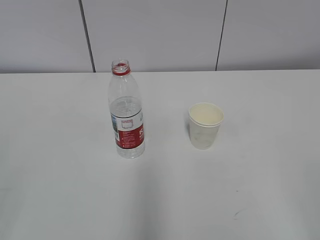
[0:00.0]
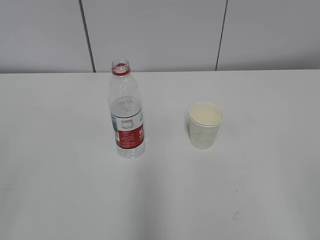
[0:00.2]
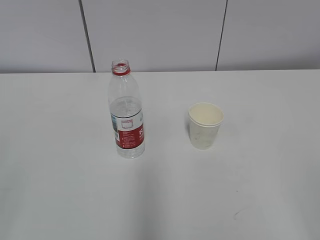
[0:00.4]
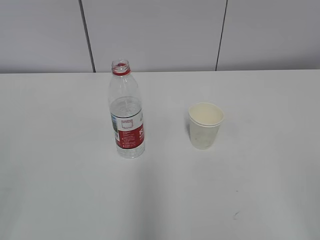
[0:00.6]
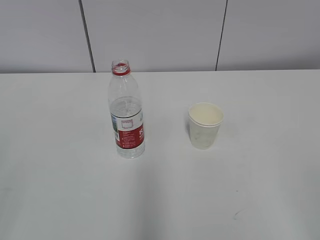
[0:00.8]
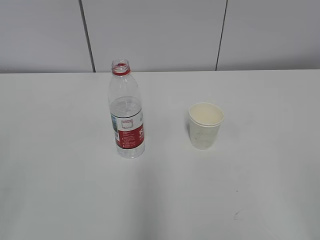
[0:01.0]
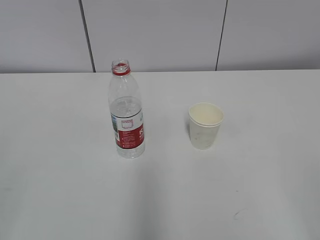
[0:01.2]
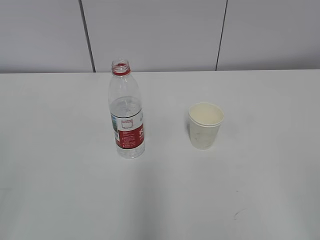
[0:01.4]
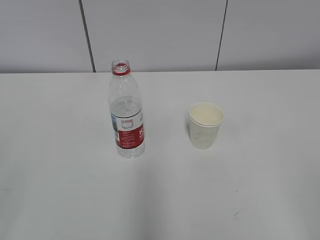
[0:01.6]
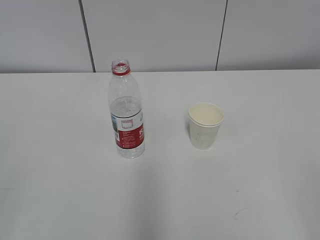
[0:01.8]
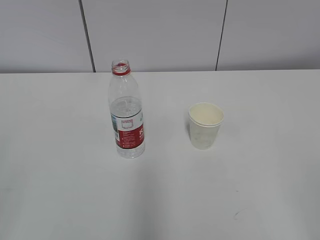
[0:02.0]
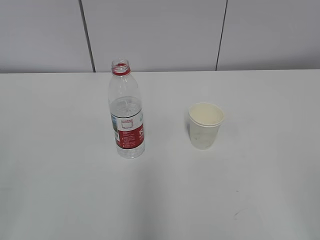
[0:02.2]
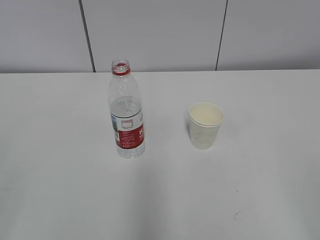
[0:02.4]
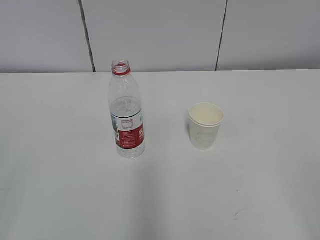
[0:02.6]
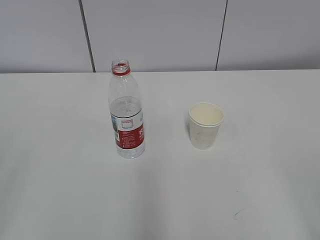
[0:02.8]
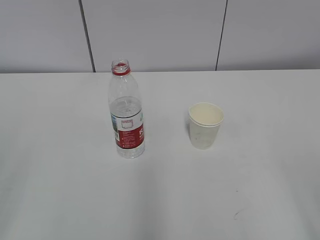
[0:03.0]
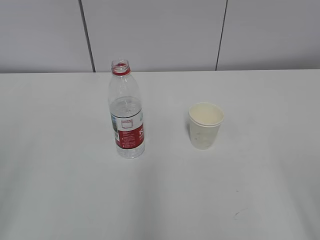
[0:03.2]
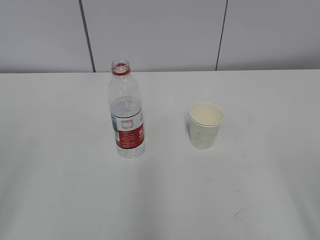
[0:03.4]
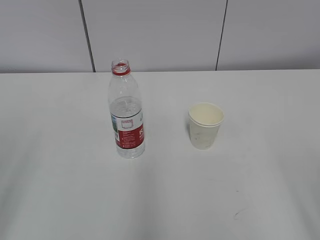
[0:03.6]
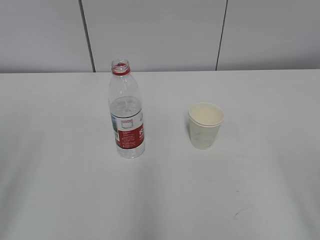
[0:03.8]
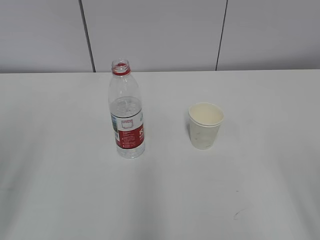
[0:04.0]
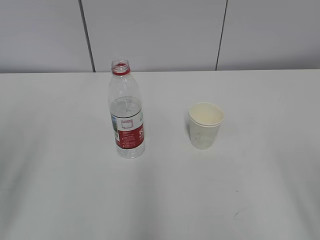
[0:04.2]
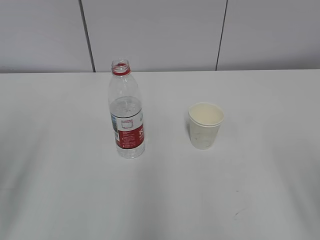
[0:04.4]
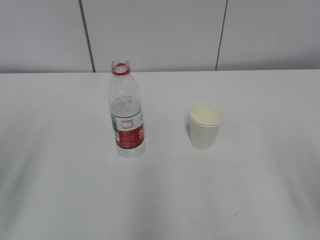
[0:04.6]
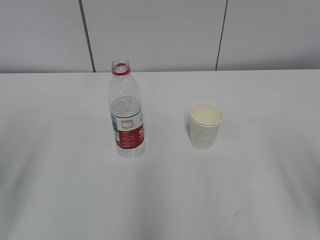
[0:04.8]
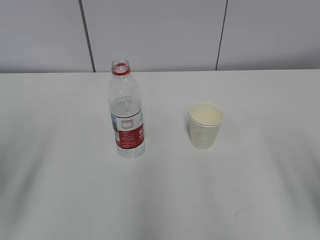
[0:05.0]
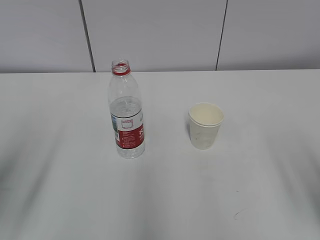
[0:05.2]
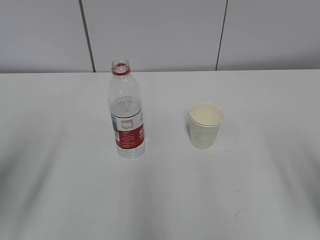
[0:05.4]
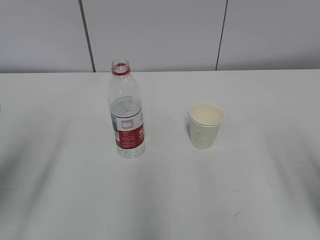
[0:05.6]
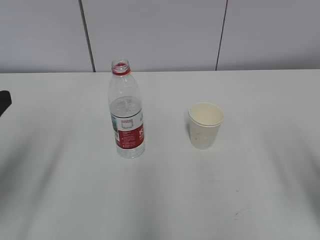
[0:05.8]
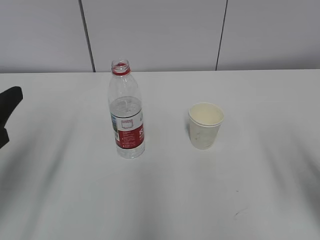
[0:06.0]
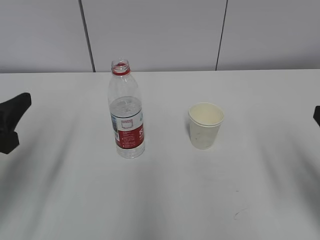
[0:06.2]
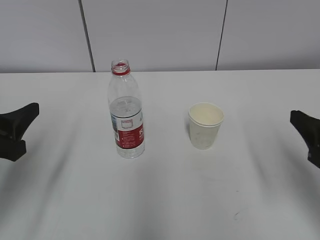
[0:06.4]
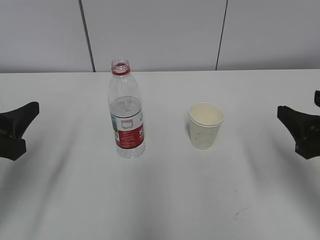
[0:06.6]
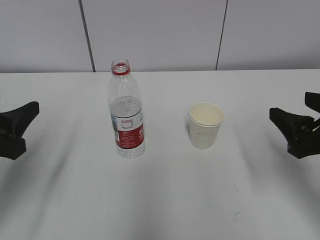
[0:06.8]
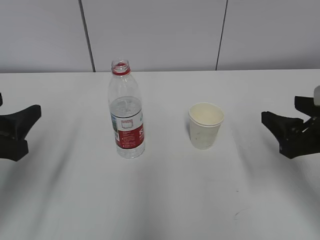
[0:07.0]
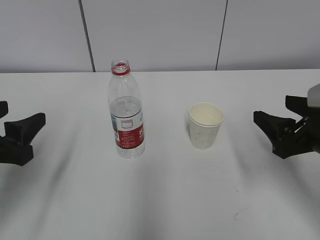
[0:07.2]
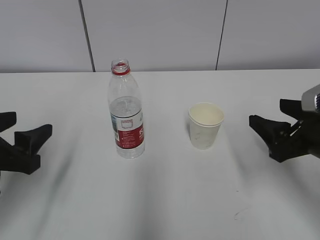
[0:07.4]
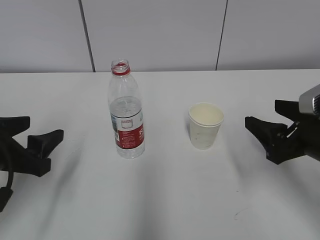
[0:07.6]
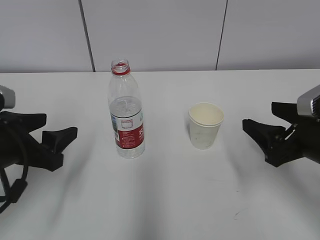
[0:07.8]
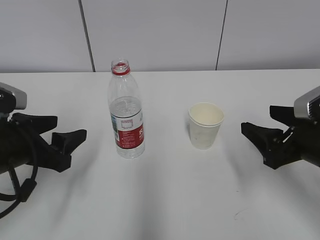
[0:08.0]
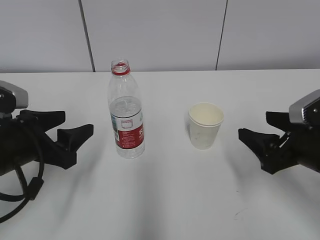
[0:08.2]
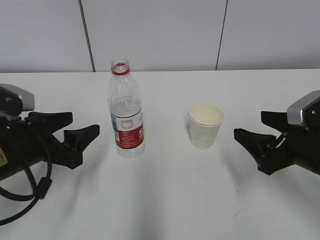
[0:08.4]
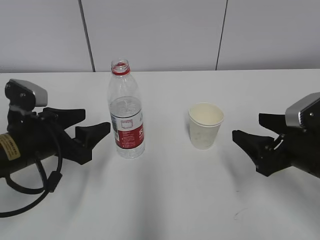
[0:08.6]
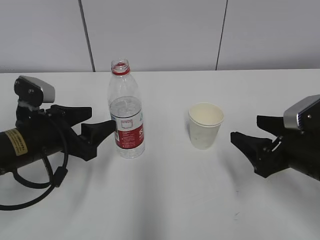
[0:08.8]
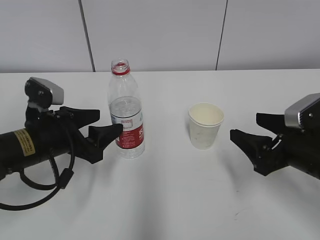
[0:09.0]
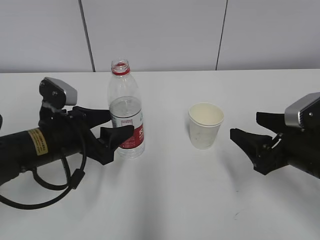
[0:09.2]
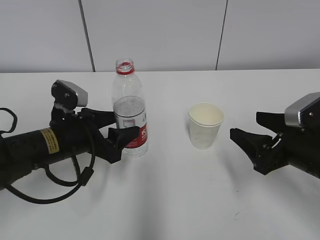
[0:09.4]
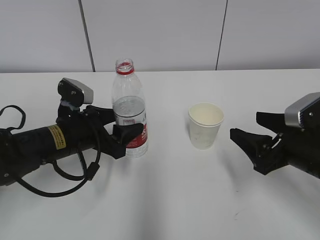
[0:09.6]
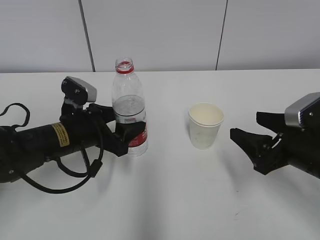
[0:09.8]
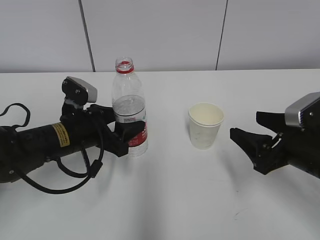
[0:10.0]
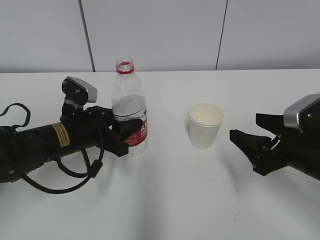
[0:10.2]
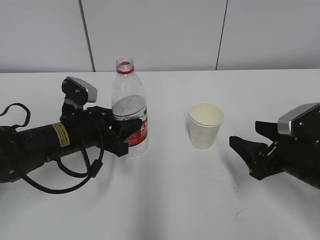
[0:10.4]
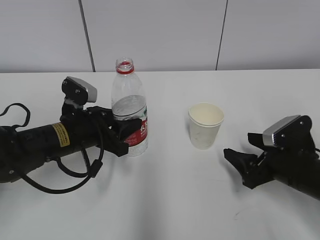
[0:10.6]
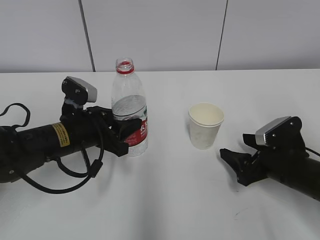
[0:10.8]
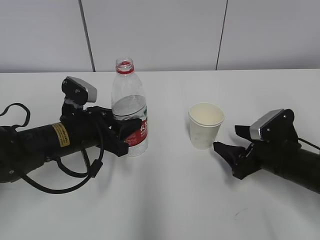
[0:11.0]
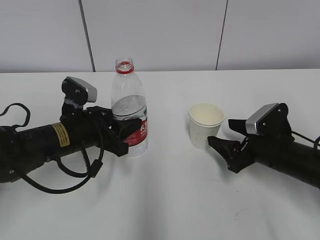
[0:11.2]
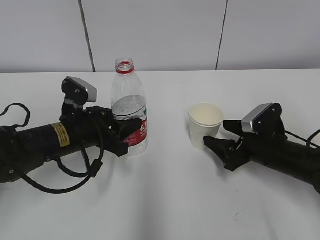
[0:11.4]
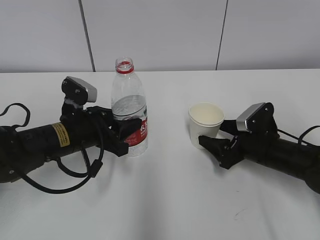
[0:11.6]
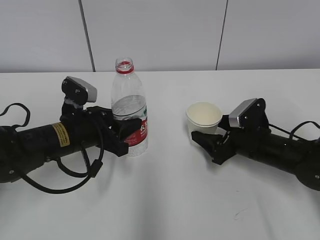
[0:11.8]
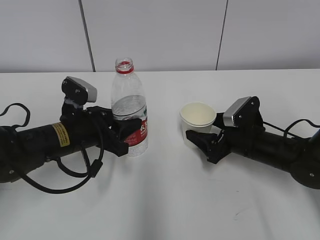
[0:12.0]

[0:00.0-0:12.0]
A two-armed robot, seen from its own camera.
Step, 0:00.0 to 0:10.4: Grab the water bottle with the left hand.
0:04.4 to 0:06.0: The two grippers go some 5 cm forward.
0:06.0 to 0:07.6: The left gripper shifts about 5 cm downward. The right gripper moves forward and downward, some 10 cm.
0:07.6 to 0:09.0: The left gripper moves forward and to the right, about 10 cm.
0:09.0 to 0:10.4: The left gripper shifts by about 5 cm, and closes up.
0:10.4 to 0:12.0: The right gripper moves forward, approximately 10 cm.

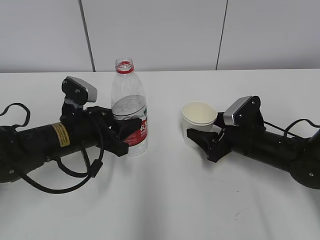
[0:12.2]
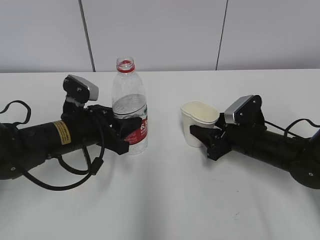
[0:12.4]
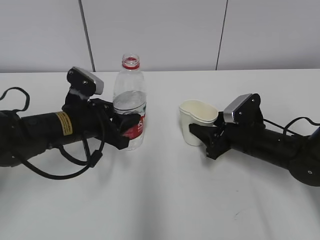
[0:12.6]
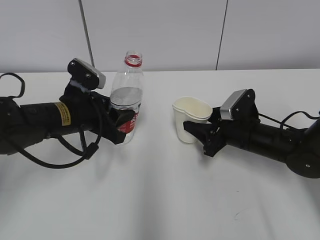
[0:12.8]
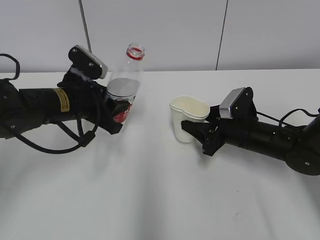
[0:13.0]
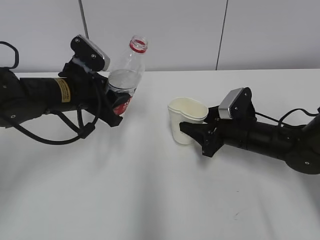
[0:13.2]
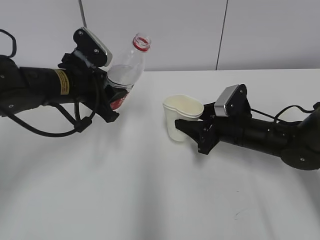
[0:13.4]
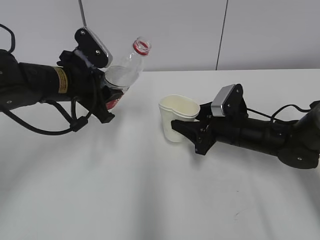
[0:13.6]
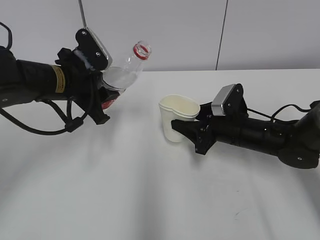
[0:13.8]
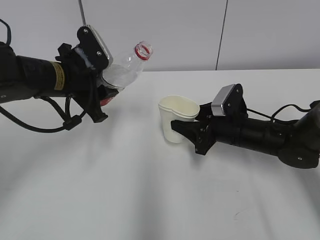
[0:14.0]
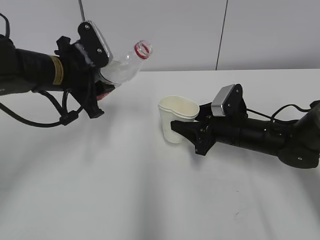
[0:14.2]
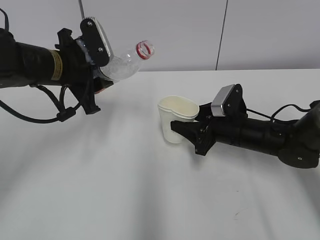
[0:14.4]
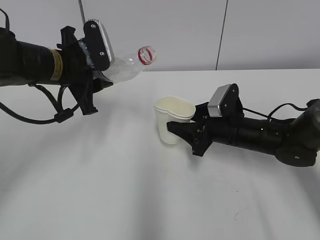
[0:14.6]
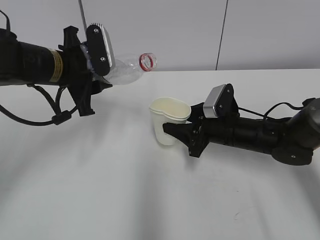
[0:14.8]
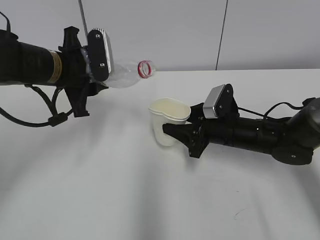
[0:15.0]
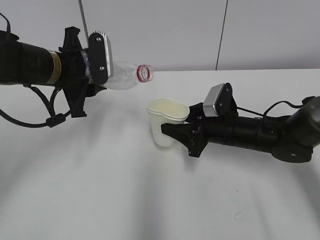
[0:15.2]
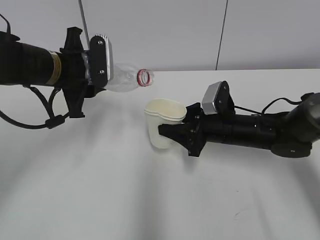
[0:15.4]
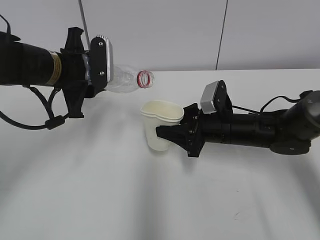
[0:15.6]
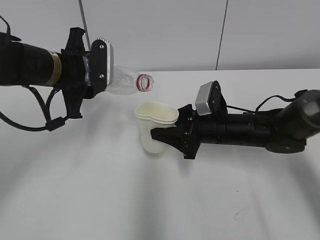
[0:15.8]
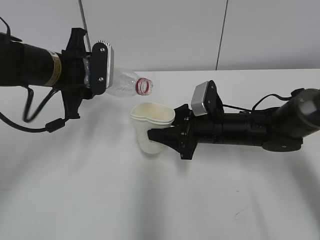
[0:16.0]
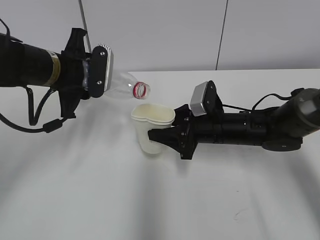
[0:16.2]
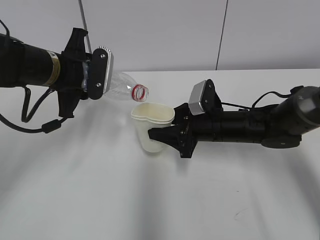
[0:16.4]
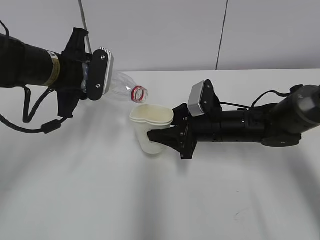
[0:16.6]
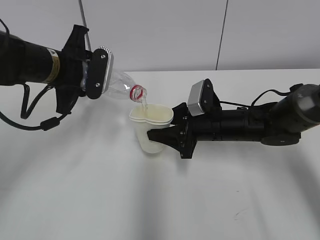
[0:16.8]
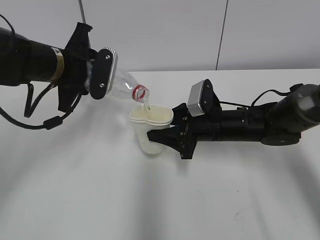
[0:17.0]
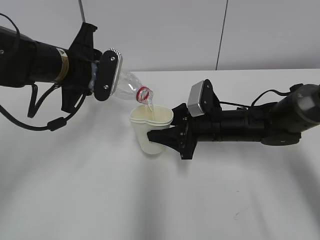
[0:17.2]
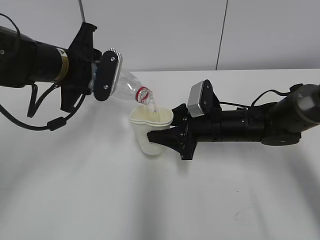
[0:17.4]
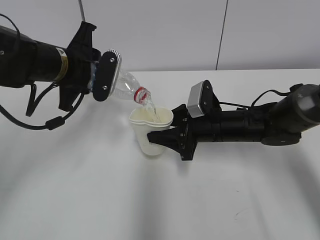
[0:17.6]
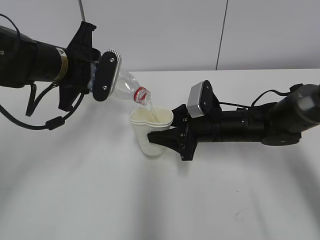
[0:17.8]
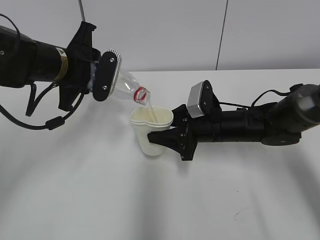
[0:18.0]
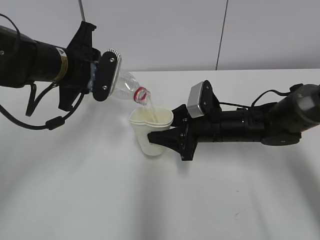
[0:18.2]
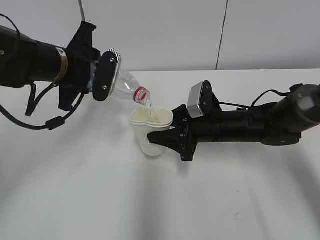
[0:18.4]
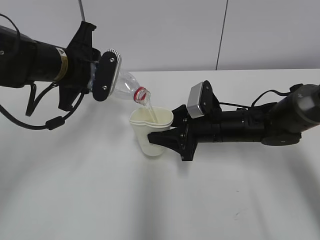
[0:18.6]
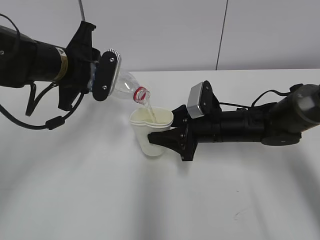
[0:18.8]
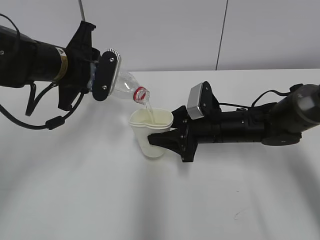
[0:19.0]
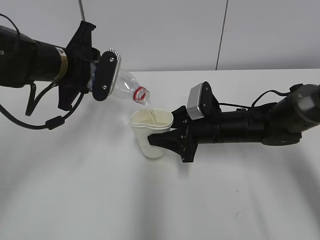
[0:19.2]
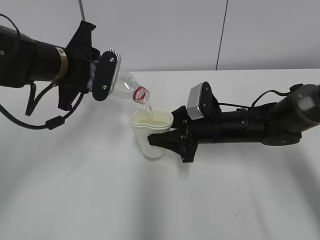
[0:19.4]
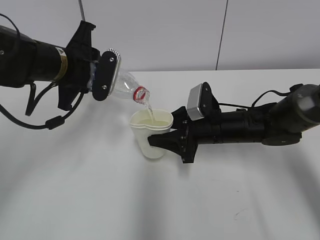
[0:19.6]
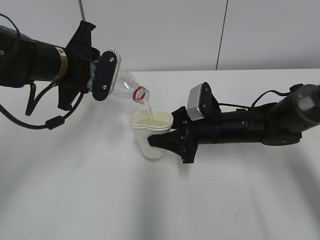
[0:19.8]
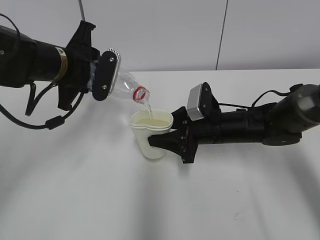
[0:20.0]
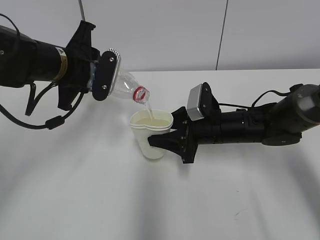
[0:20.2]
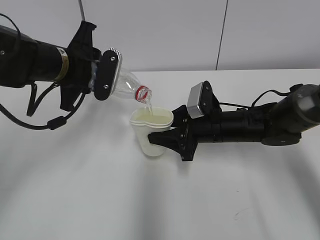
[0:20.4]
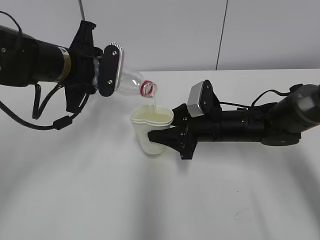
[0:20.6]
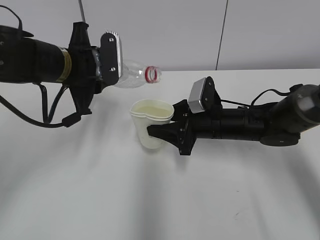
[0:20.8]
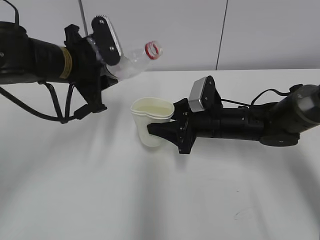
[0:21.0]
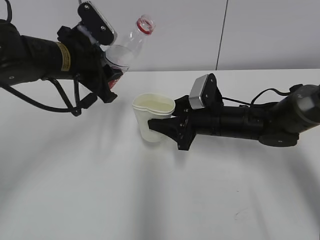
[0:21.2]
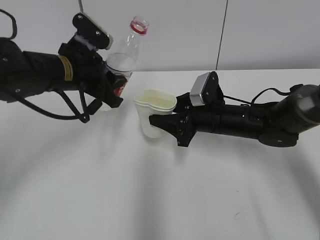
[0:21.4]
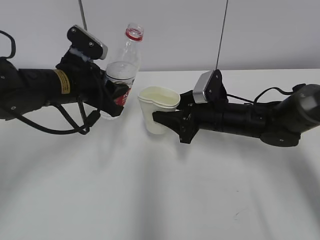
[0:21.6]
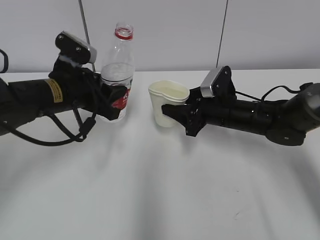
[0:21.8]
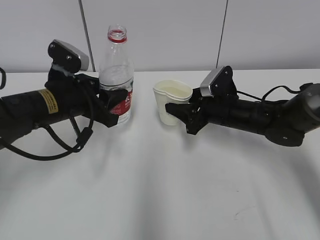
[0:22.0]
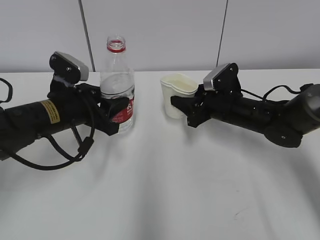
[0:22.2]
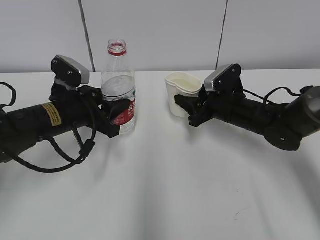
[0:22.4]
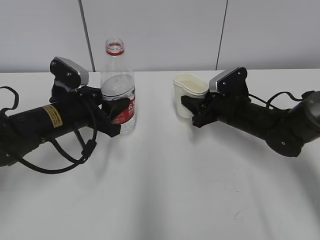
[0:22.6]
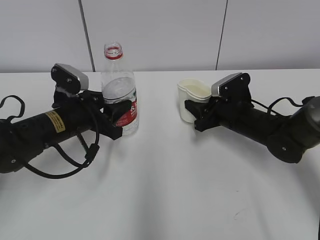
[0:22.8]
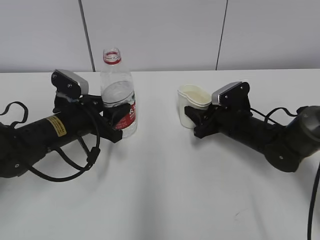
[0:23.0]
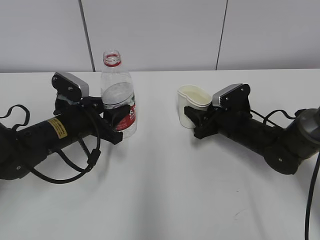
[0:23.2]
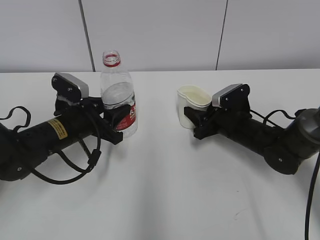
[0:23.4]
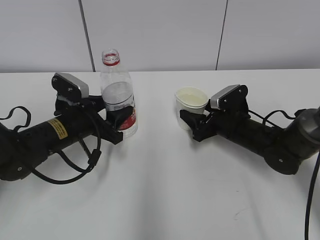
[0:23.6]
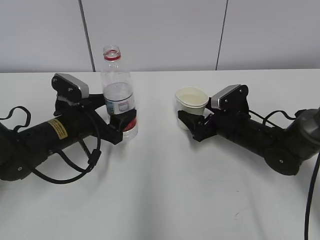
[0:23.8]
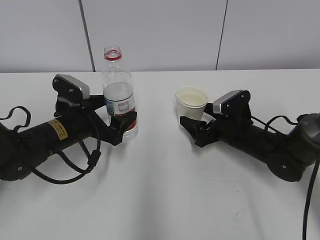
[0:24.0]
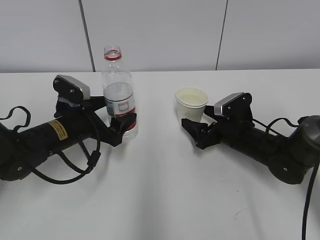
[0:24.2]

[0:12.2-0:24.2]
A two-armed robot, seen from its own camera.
Step, 0:14.0 to 0:17.2: Fill water with the right hand.
Step, 0:14.0 to 0:17.2: Pour water with the left hand.
Step, 0:17.4 to 0:18.8: Collect water with the left hand.
Step, 0:20.0 to 0:20.4: Place the water bottle with the left hand.
0:12.2 to 0:13.8: The left gripper moves upward, some 10 cm. The right gripper closes up.
0:15.2 to 0:16.6: There are only small adjustments of the grippers.
0:16.6 to 0:18.2: The grippers move only a little.
0:18.2 to 0:19.8: Both grippers stay put.
0:21.2 to 0:22.6: The left gripper moves downward, approximately 10 cm, while the right gripper changes place by some 5 cm.
0:22.6 to 0:24.2: The left gripper opens its fingers. Meanwhile the right gripper moves some 5 cm, and opens its fingers.
